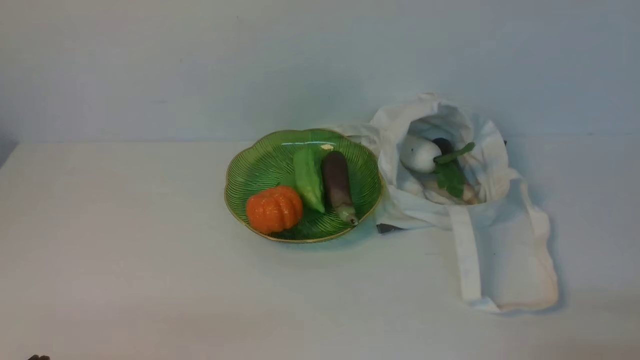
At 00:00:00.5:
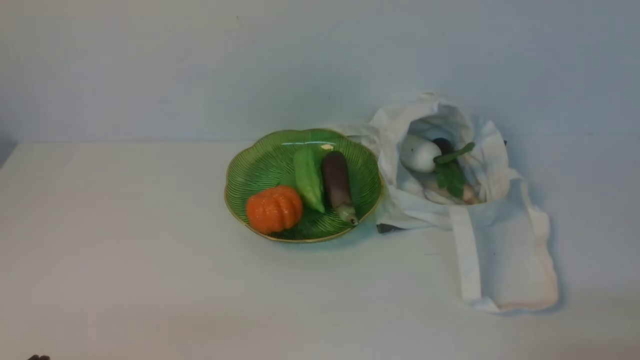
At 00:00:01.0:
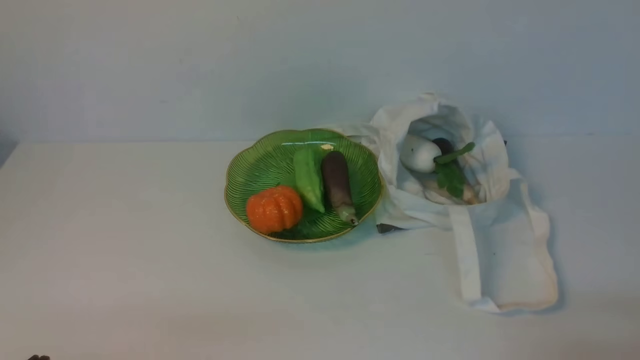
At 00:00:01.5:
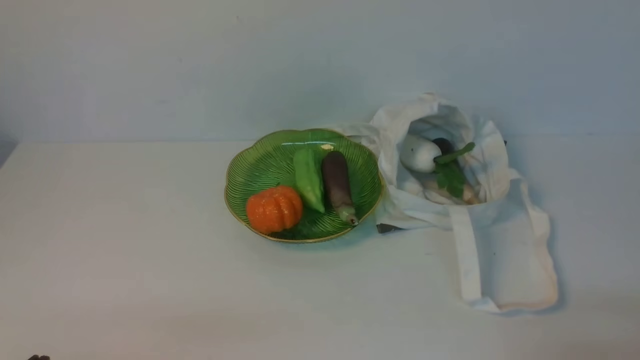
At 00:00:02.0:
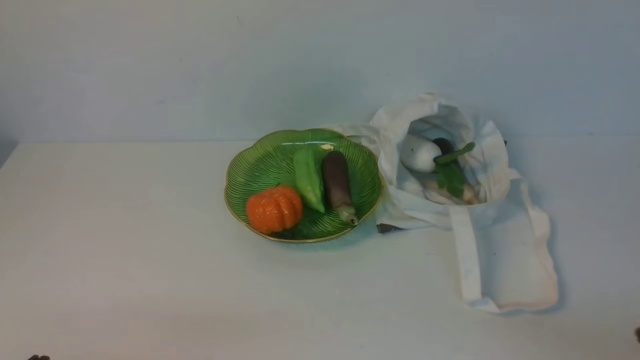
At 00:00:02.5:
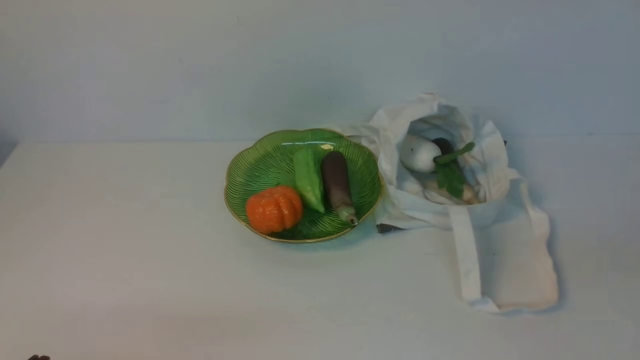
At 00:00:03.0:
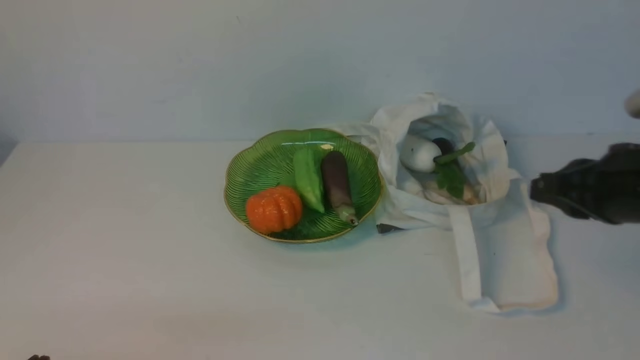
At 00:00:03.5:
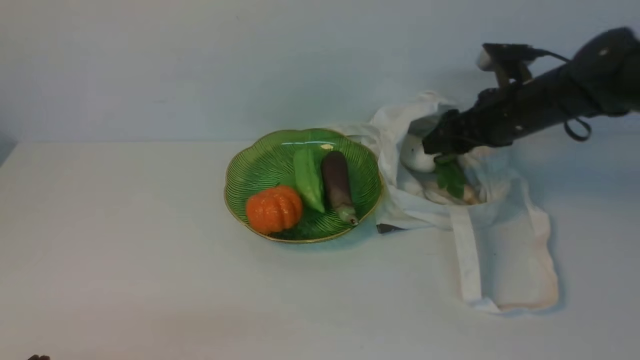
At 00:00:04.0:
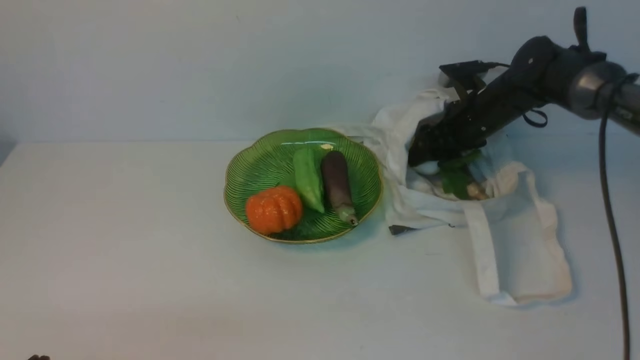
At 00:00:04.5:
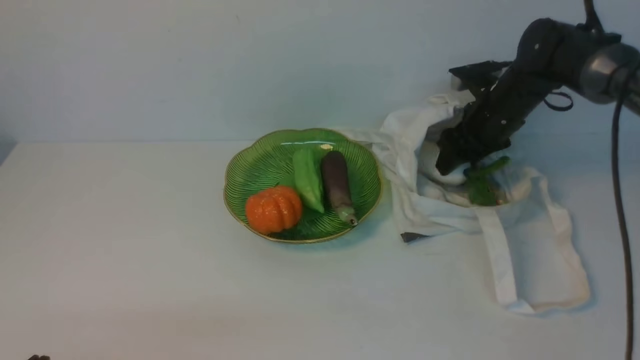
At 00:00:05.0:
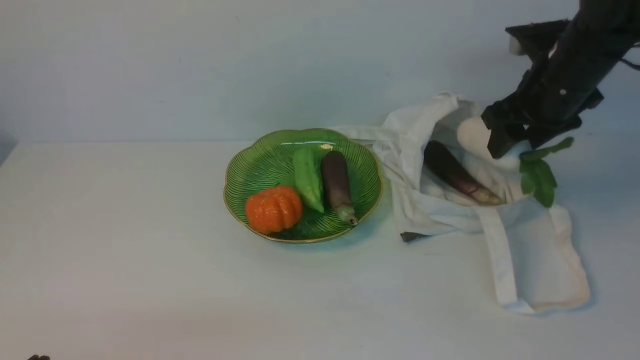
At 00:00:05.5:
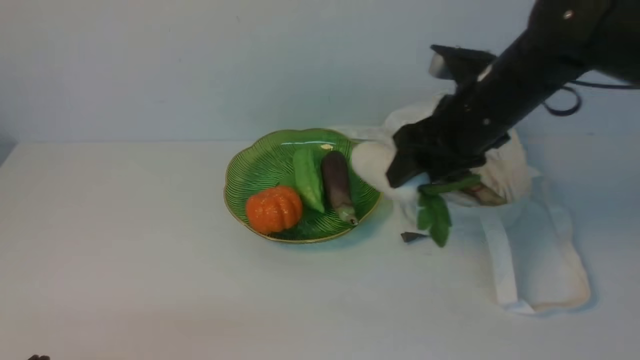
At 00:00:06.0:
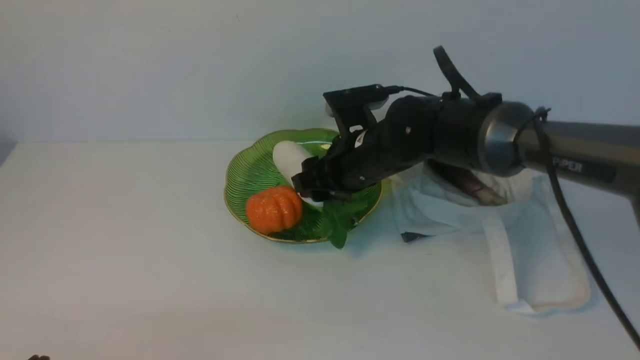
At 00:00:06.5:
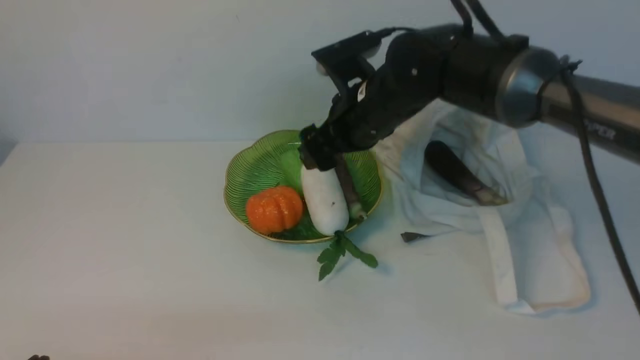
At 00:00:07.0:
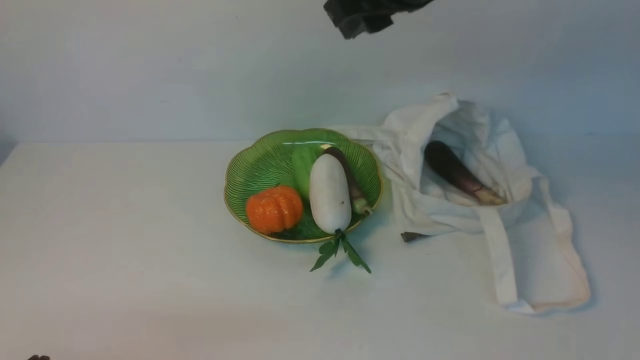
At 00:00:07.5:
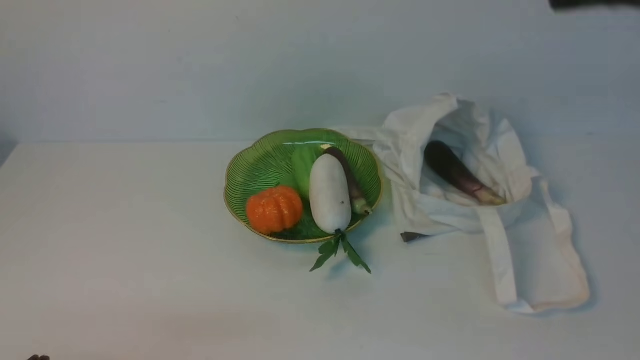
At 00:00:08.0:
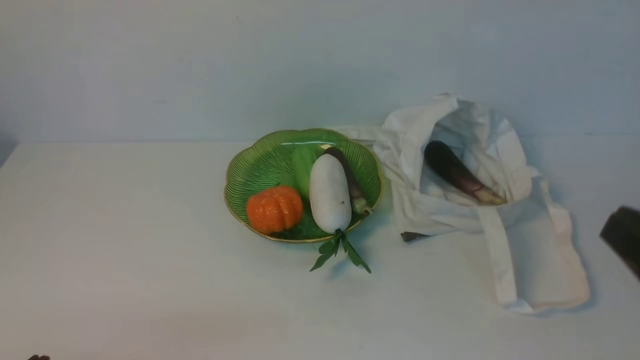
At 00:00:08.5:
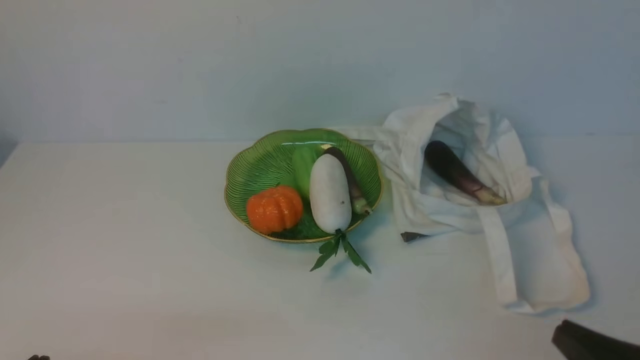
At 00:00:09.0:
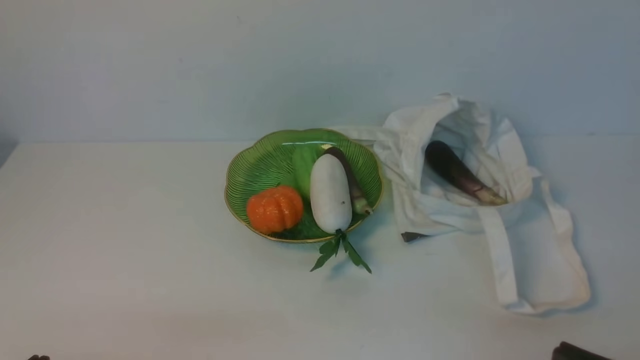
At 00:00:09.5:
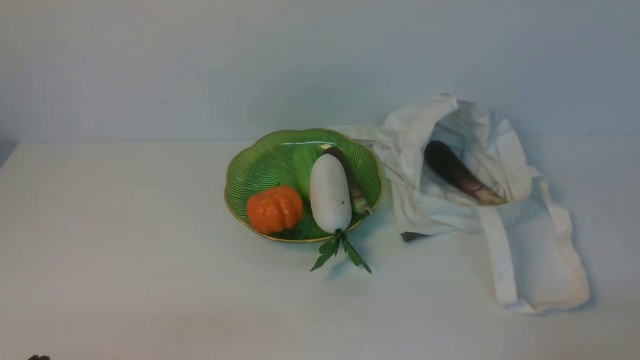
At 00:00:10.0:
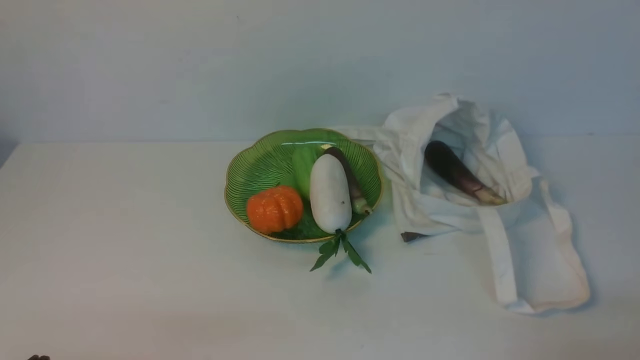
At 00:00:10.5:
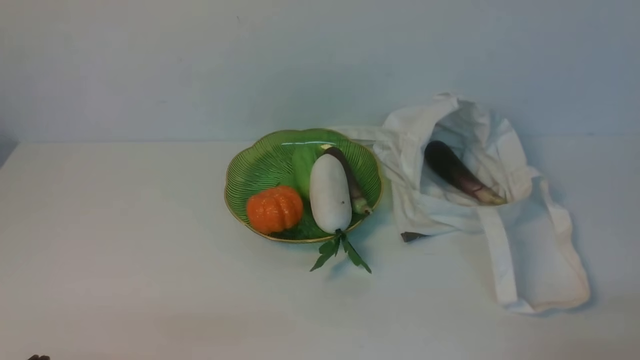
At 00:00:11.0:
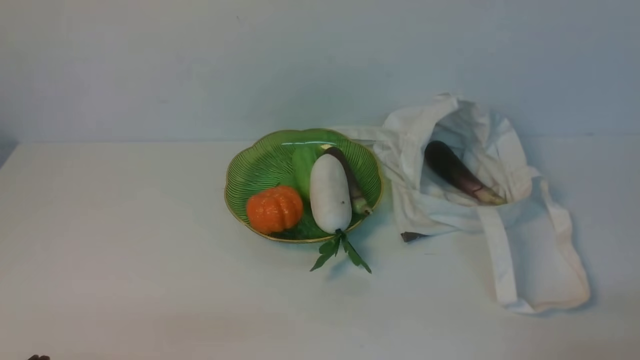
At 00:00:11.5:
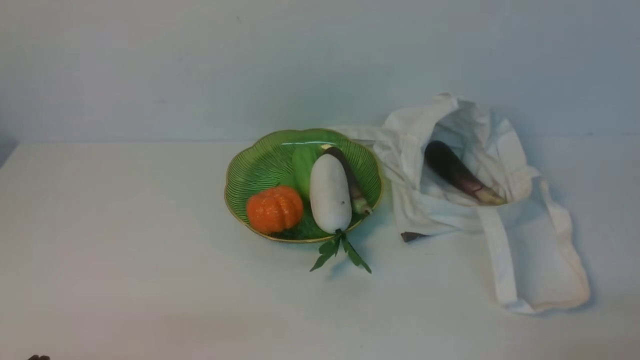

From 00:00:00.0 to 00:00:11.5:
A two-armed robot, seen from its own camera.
Task of the whole recording: take vegetables from cloth bag on white table place on plate.
Step, from 00:00:00.0 to 00:00:04.0: Grasp the radish with right gripper.
Step, from 00:00:04.5 to 00:00:06.0: Place the radish on the plate with right gripper.
From 00:00:02.0 to 00:00:04.0: The right gripper heads forward, covering approximately 40 cm, and opens its fingers.
From 00:00:04.0 to 00:00:06.0: The right gripper moves to the left and backward, some 20 cm.
From 00:00:06.0 to 00:00:07.5: The right gripper shifts roughly 35 cm upward, backward and to the right, and closes up.

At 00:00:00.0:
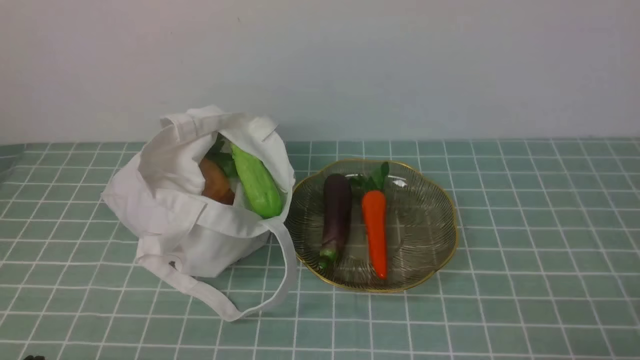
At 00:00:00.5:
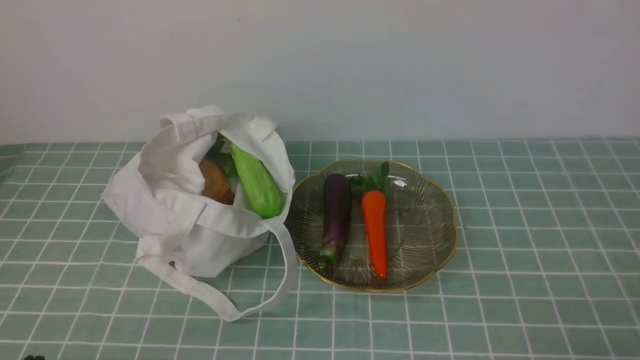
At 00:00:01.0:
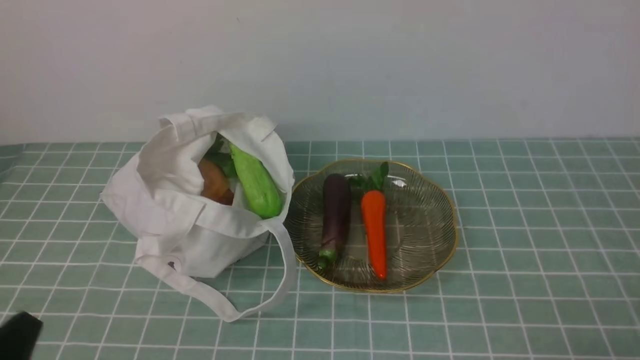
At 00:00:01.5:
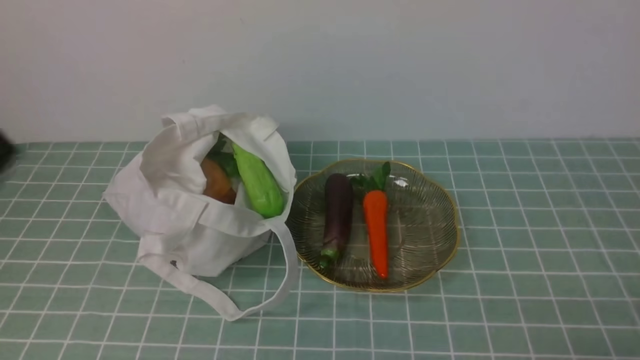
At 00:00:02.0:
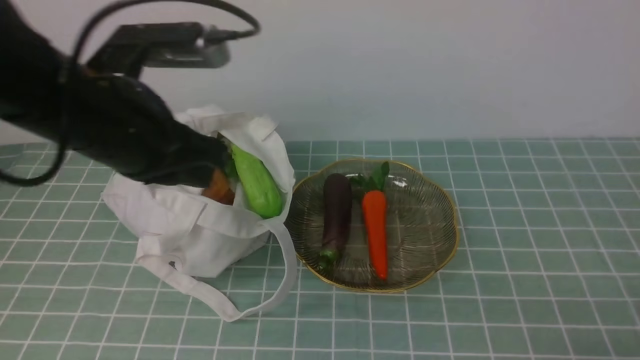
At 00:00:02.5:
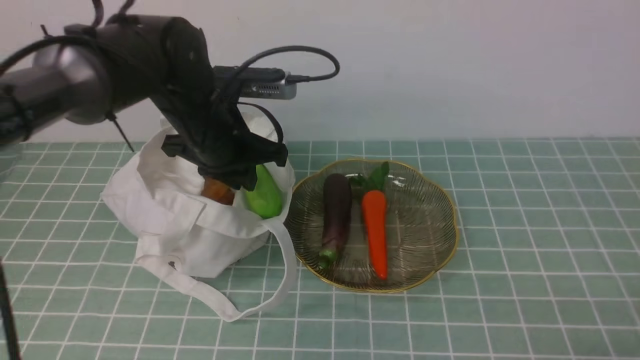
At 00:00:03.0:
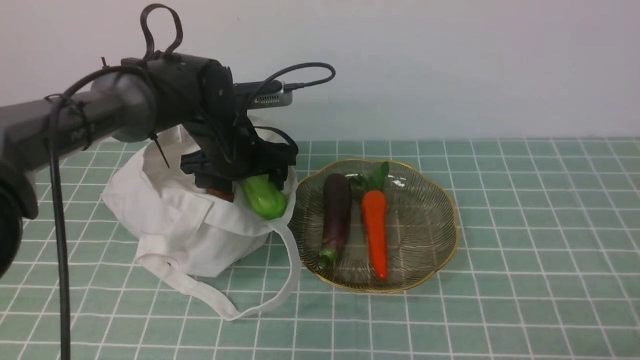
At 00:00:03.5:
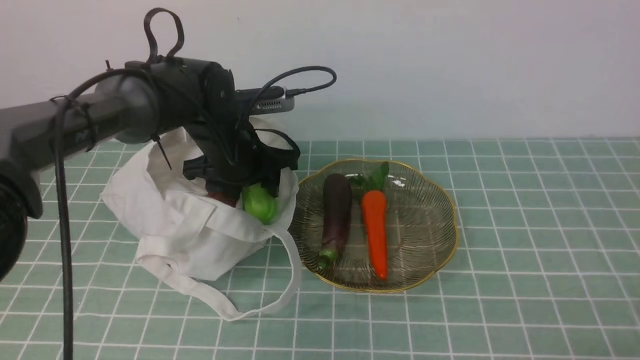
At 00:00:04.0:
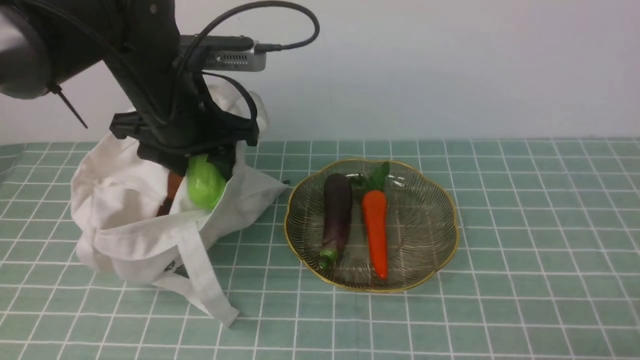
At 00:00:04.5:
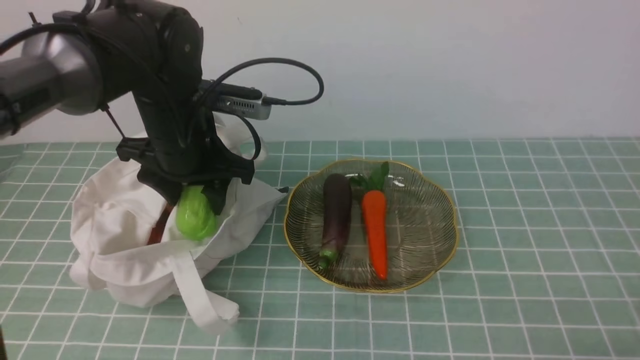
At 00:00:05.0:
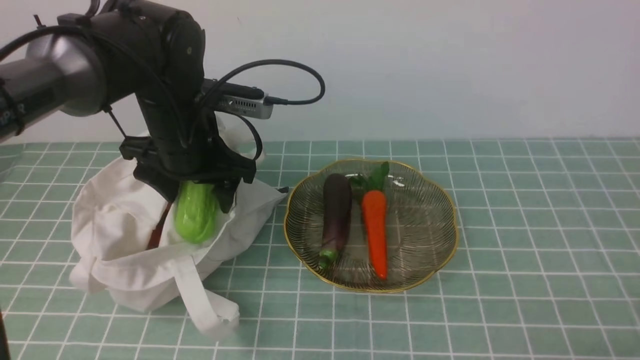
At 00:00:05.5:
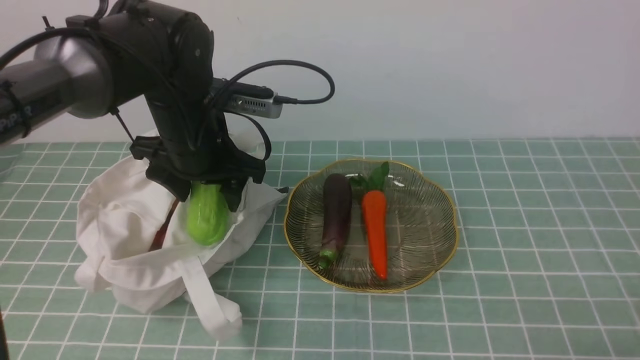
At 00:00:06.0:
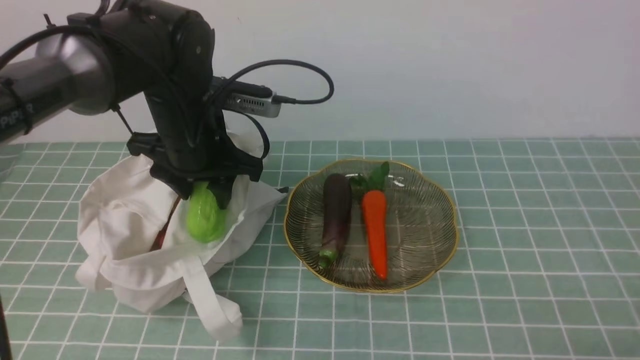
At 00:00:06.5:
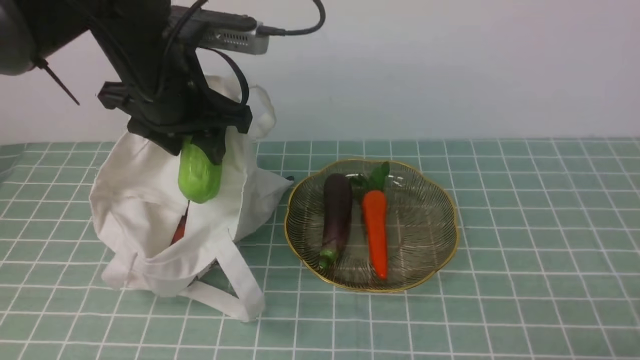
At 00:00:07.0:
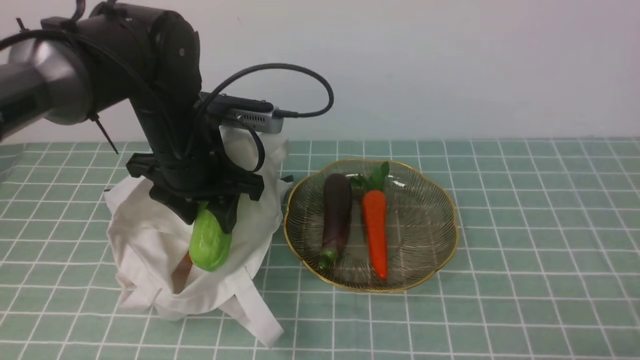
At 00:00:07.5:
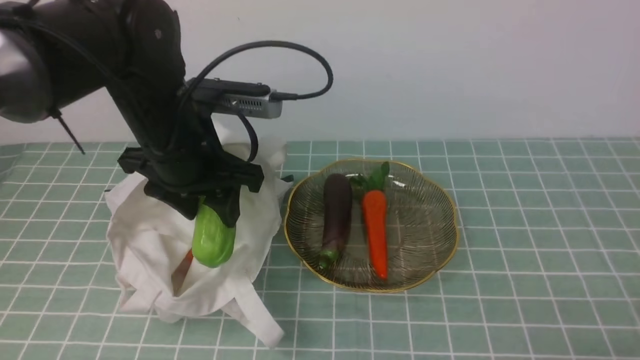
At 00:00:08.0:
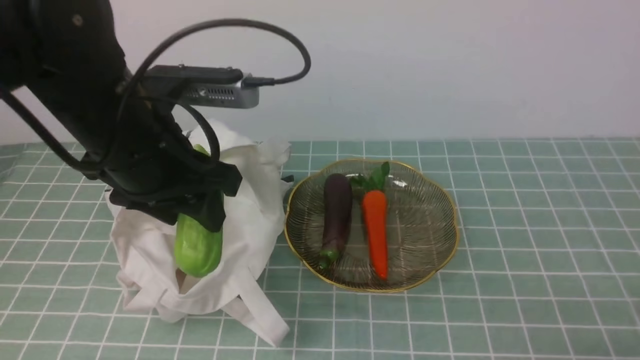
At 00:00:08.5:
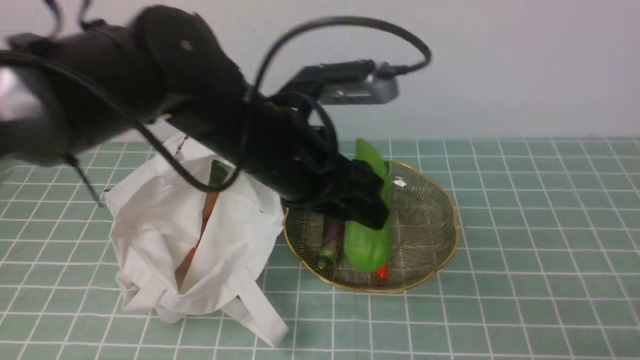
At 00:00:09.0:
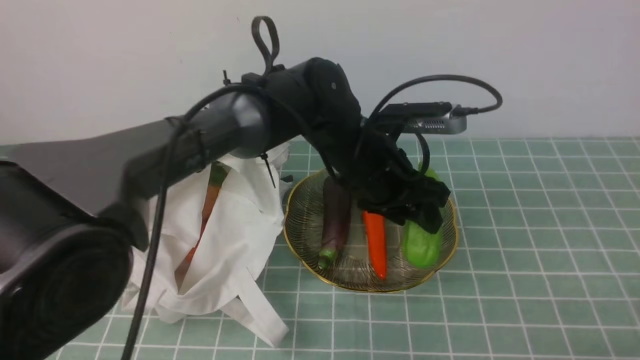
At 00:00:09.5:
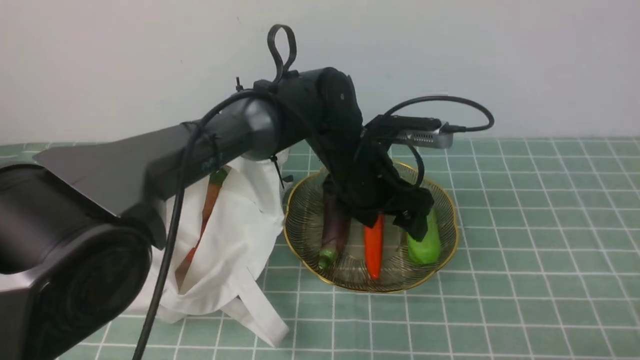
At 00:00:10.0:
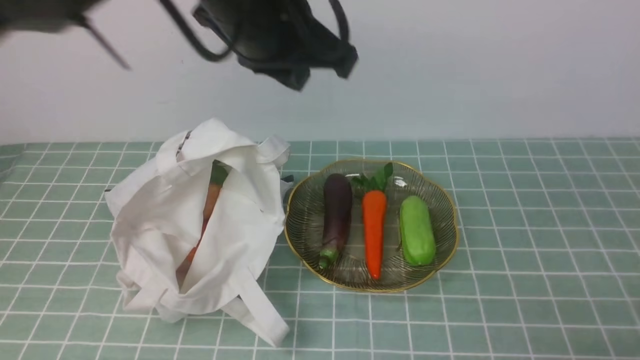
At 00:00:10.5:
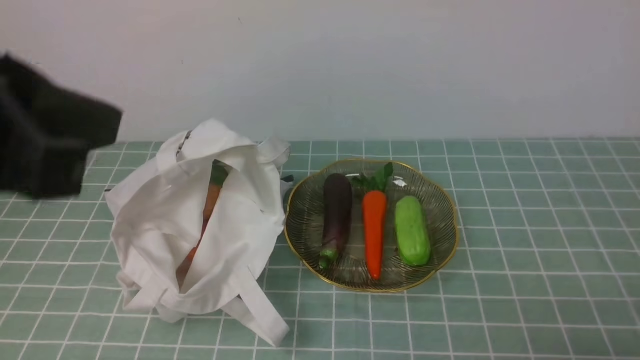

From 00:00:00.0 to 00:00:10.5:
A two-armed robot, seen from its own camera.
Task of the whole recording: take vegetables from cloth bag on blue coffee tablecloth place on plate.
Step, from 00:00:00.0 to 00:00:05.5: Grasp the bitter melon with left gripper.
Step, from 00:00:06.0 to 00:00:09.5: Place the bitter melon on the plate with left gripper.
From 00:00:00.0 to 00:00:02.0: The left gripper shifts about 30 cm forward and upward.
From 00:00:02.0 to 00:00:04.0: The left gripper travels forward by about 5 cm, and opens.
From 00:00:04.0 to 00:00:06.5: The grippers make only small movements.
From 00:00:06.5 to 00:00:08.5: The left gripper moves to the right, roughly 10 cm.
From 00:00:08.5 to 00:00:10.5: The left gripper is displaced backward, upward and to the left by about 25 cm, and closes up.
